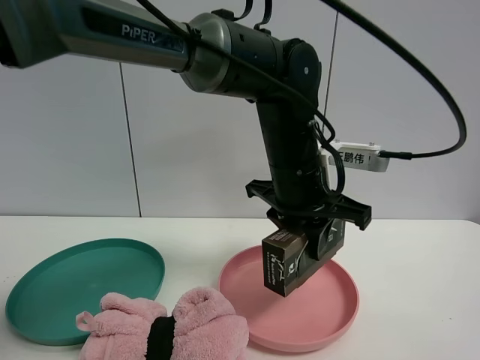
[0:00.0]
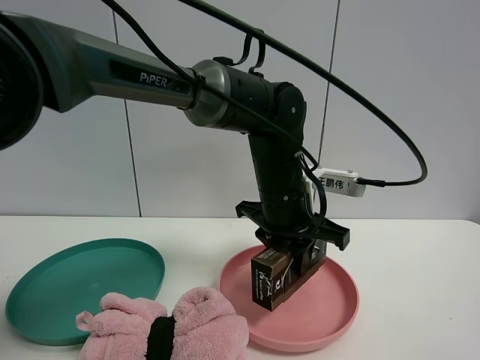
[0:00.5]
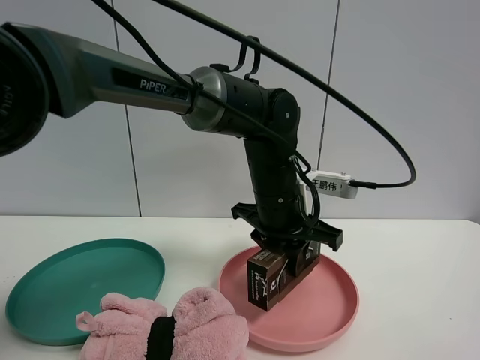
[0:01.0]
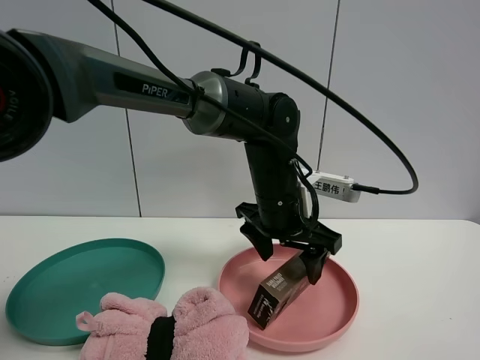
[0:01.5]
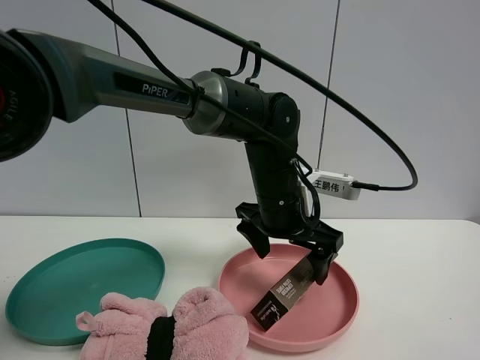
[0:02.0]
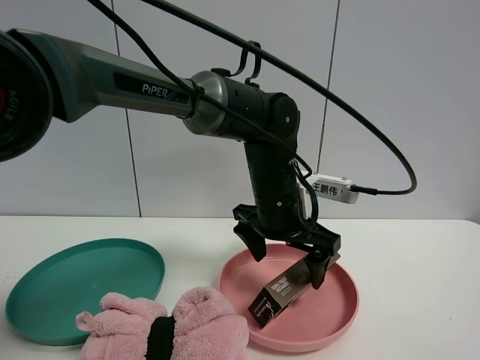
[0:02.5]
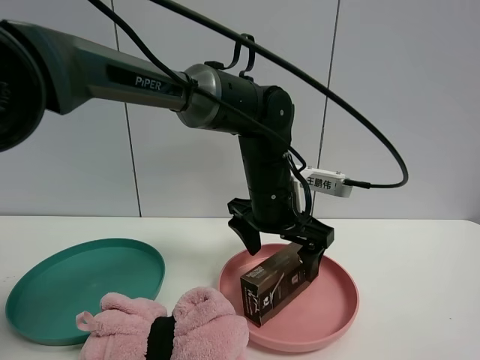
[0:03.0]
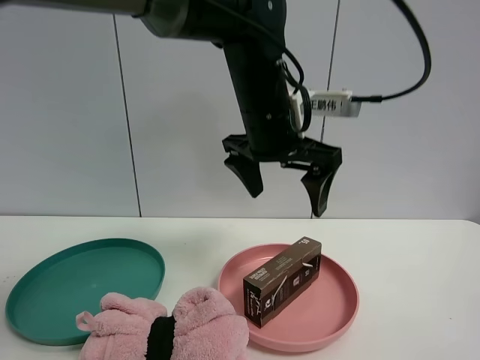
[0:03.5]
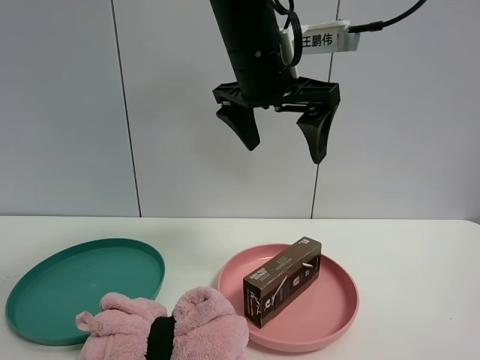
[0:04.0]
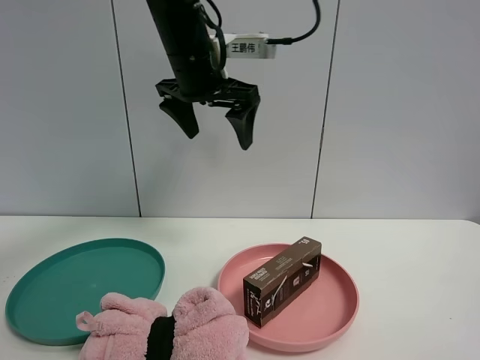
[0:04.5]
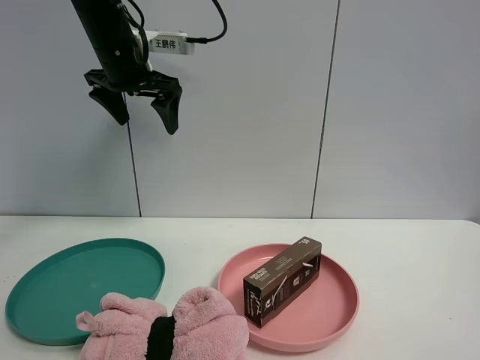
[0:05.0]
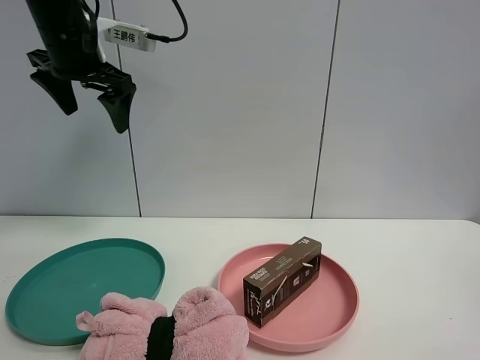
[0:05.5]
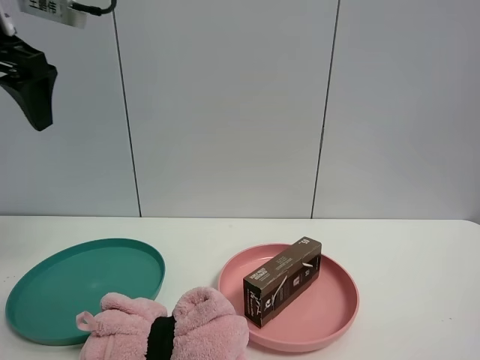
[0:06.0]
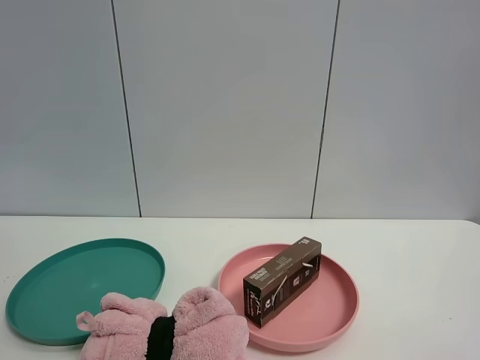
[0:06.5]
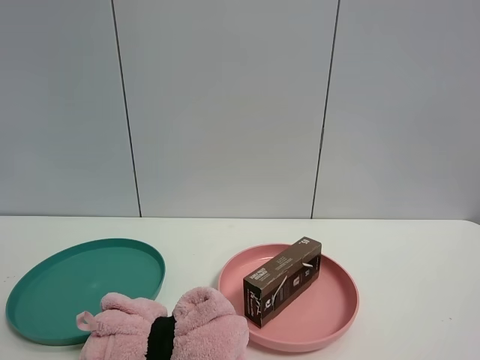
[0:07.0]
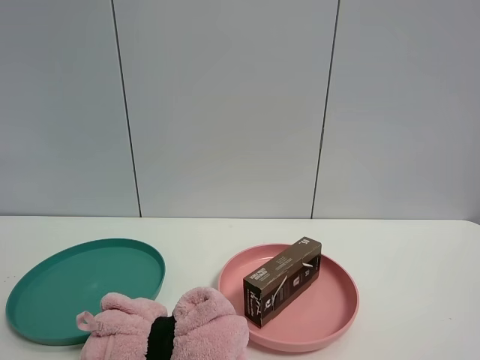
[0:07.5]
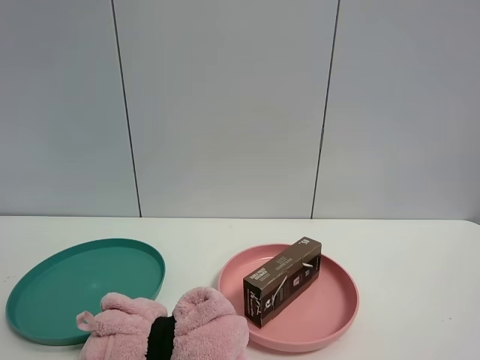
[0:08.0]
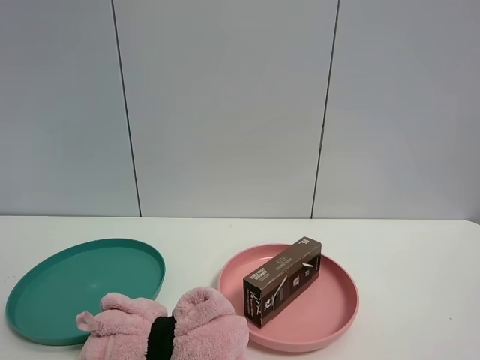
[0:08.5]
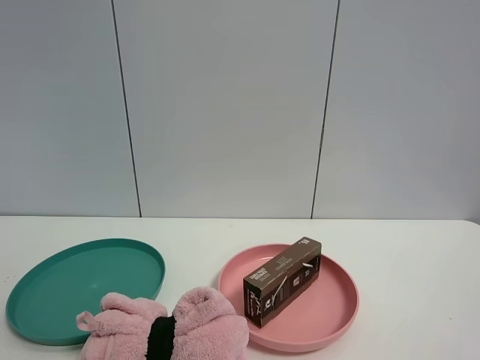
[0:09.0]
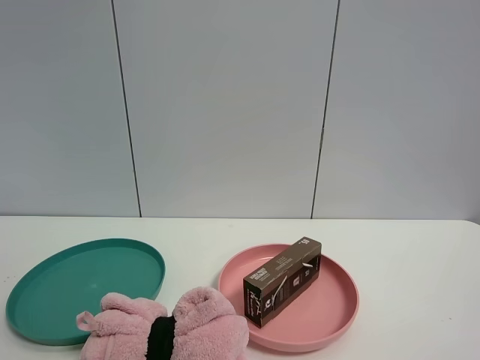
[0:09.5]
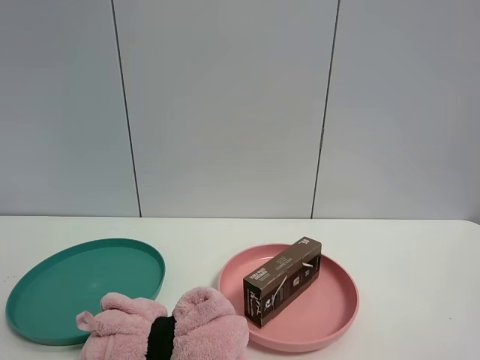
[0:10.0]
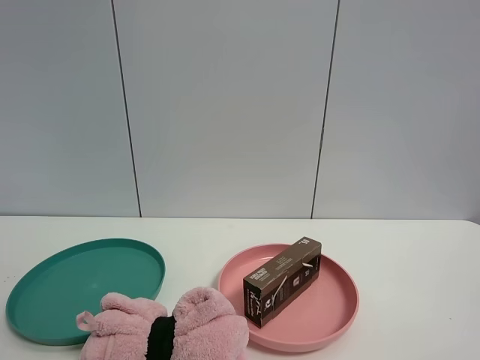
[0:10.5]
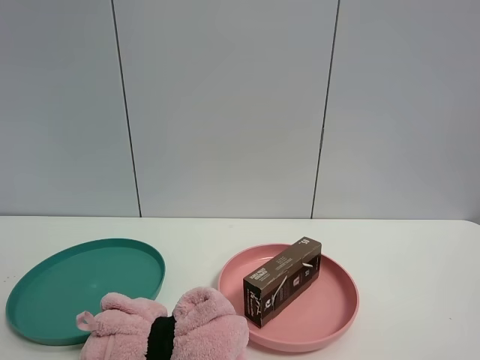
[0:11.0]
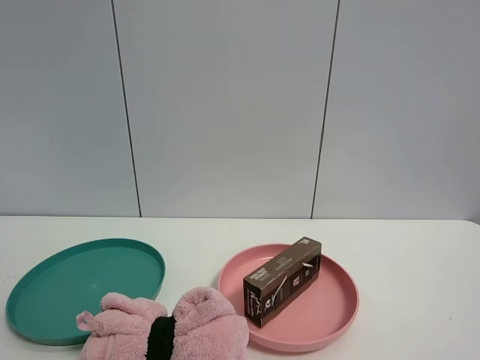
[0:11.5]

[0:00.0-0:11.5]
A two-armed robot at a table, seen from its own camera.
Task of the whole recording: the gripper move the object.
0:00.0 to 0:02.0: The left gripper moves some 5 cm, and opens up.
0:02.0 to 0:04.0: The left gripper shifts approximately 15 cm upward.
0:04.0 to 0:06.0: The left gripper is displaced to the left by roughly 30 cm.
0:06.0 to 0:07.5: The left gripper heads backward, covering some 30 cm.

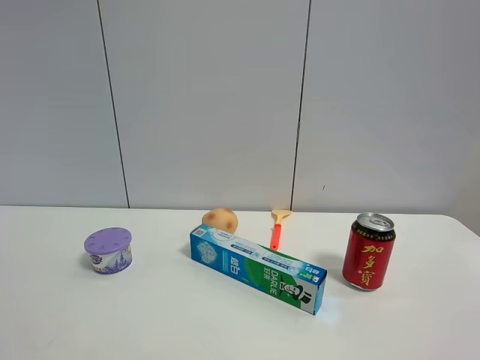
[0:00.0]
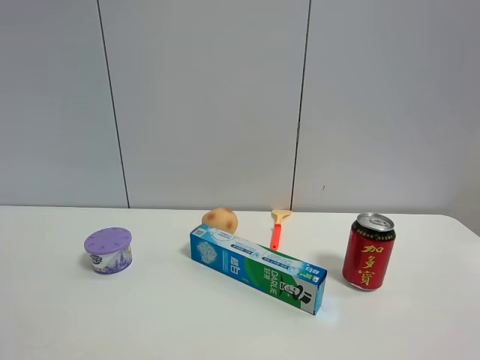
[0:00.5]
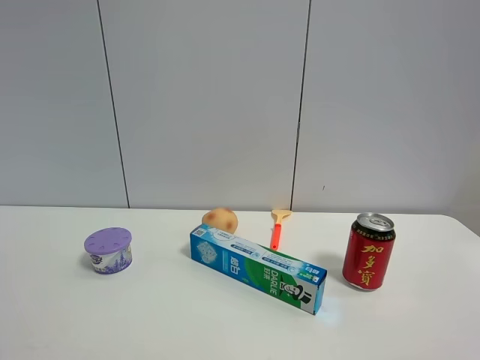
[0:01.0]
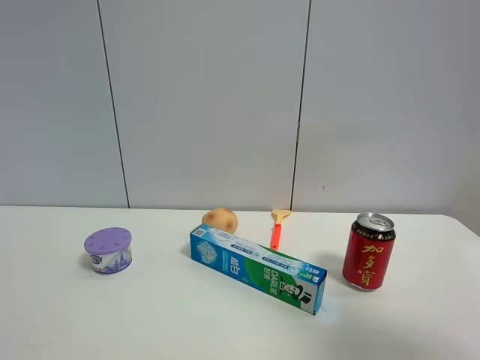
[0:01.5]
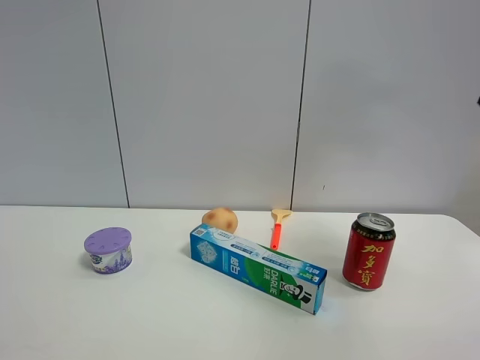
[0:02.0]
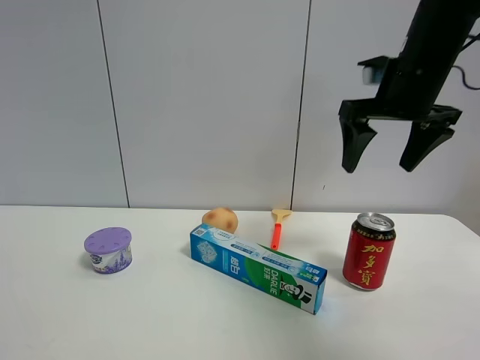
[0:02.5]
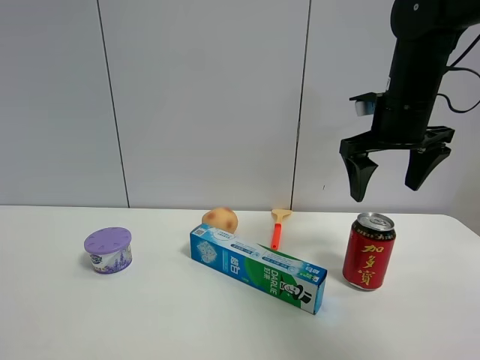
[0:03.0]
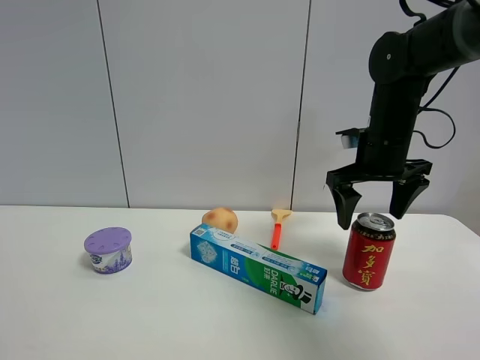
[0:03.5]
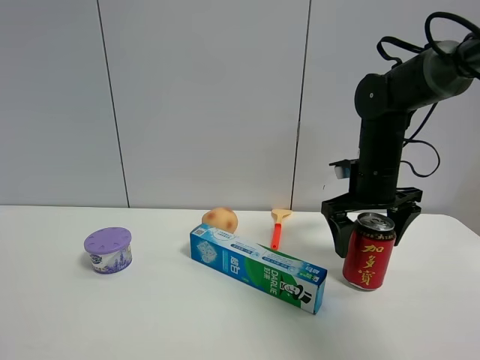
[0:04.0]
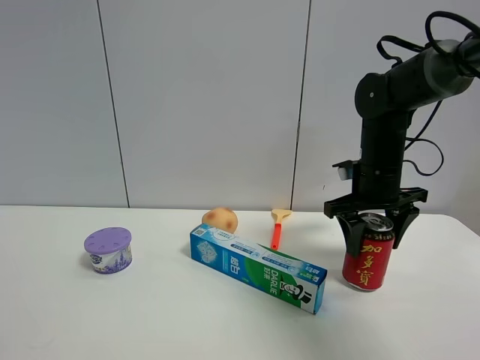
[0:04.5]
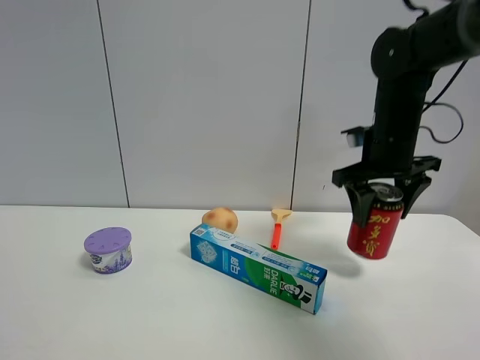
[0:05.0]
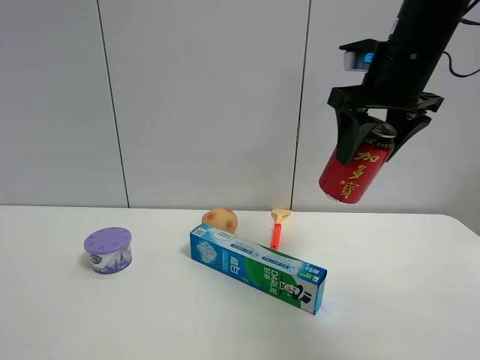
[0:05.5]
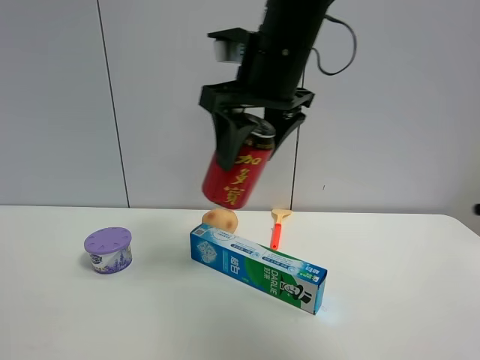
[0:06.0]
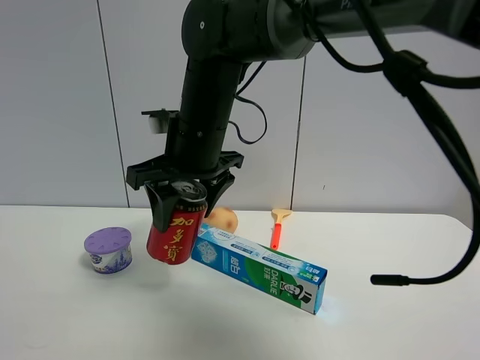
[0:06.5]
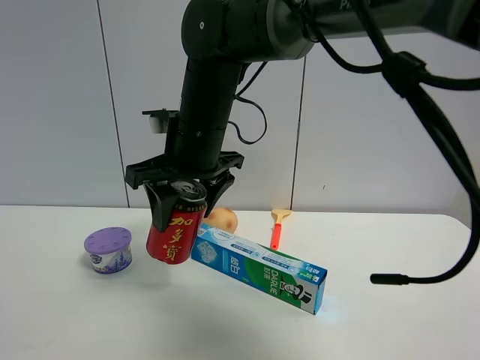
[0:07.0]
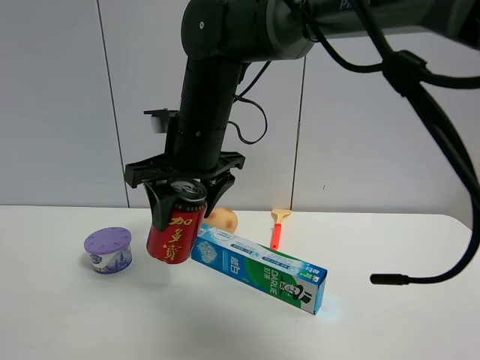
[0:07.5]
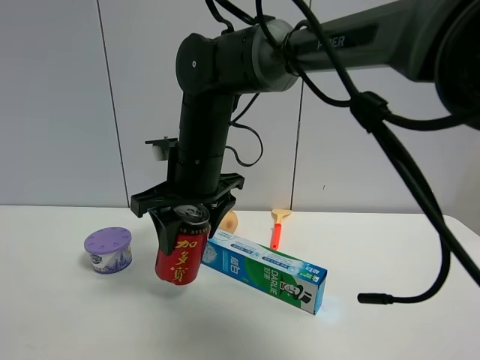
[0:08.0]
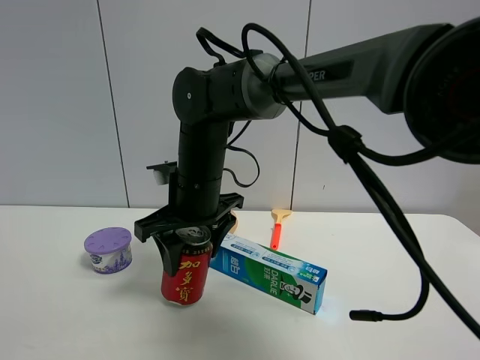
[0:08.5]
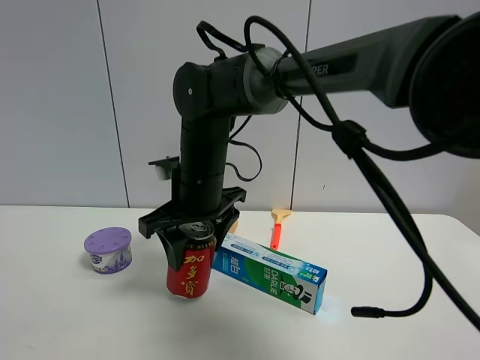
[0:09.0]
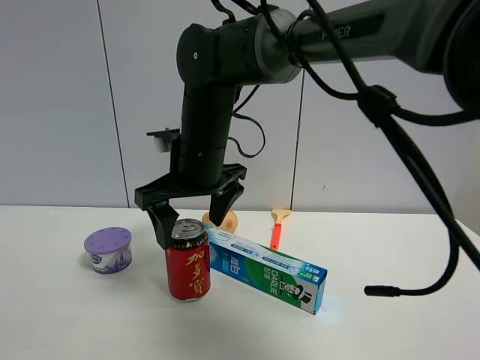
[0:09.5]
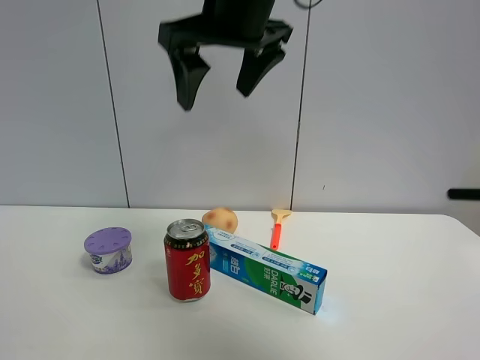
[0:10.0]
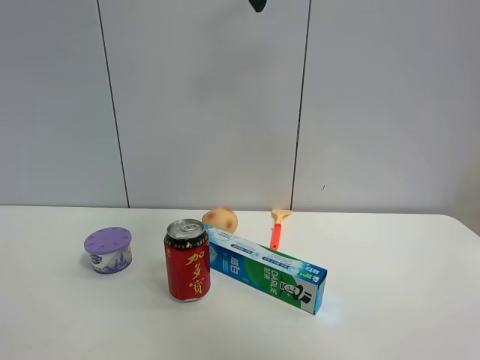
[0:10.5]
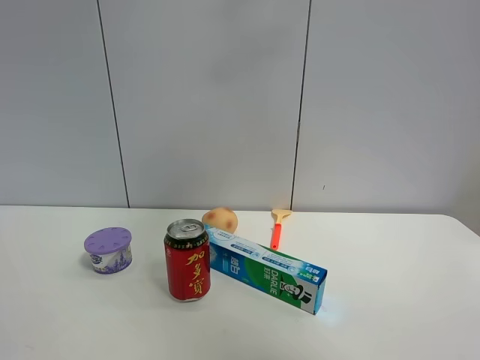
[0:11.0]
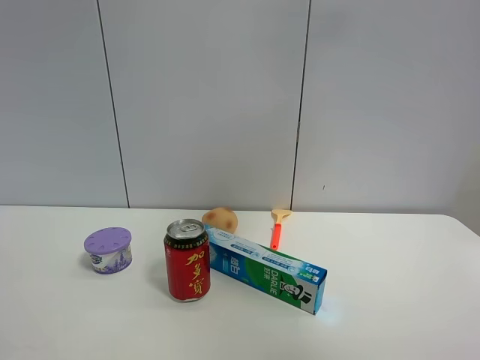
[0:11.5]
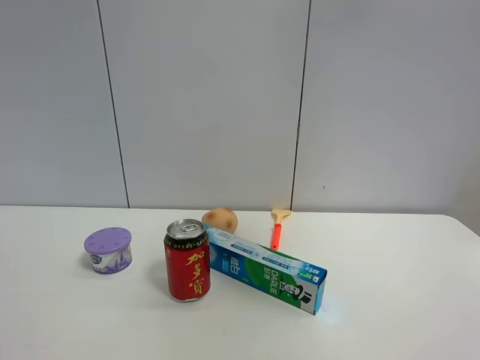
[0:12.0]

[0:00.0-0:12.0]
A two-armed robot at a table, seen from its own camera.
Task of the whole recording: the gripper move the object.
Step, 0:00.0 to 0:04.5: Grasp the Jia Duo Bao with the right gripper.
Step, 0:05.0 to 0:09.0: Place the Jia Duo Bao on the table with the right gripper.
0:00.0 to 0:02.0: The right gripper travels forward by about 30 cm.
0:02.0 to 0:04.0: The right gripper heads downward, forward and to the left, covering roughly 25 cm.
0:04.0 to 0:06.0: The right gripper is displaced to the left, upward and backward by roughly 25 cm, and closes its fingers.
0:06.0 to 0:08.0: The right gripper moves downward and to the left, roughly 15 cm.
0:08.0 to 0:10.0: The right gripper is displaced upward by about 20 cm, and opens.
0:10.0 to 0:12.0: The right gripper is displaced to the right, upward and backward by approximately 35 cm, and opens its fingers.

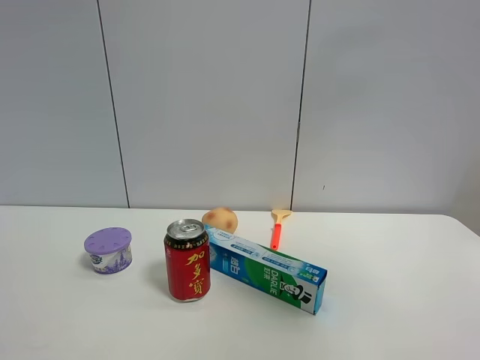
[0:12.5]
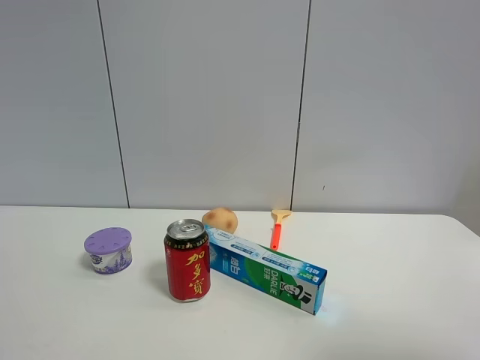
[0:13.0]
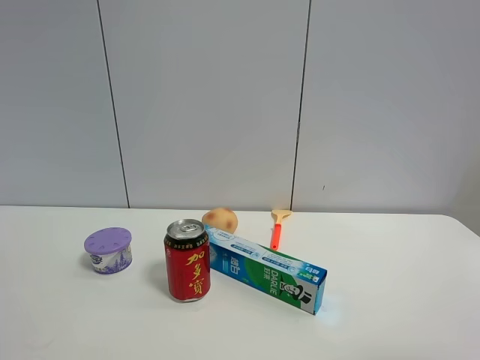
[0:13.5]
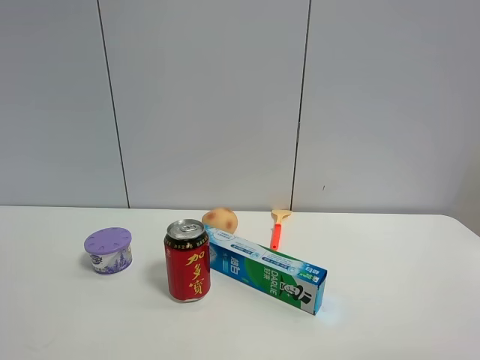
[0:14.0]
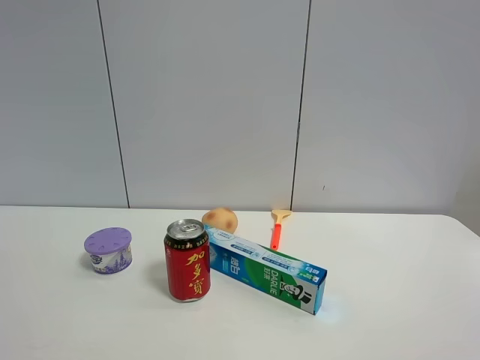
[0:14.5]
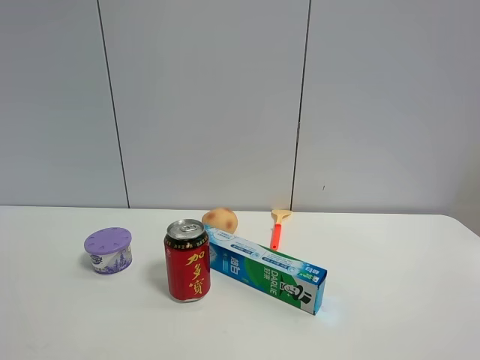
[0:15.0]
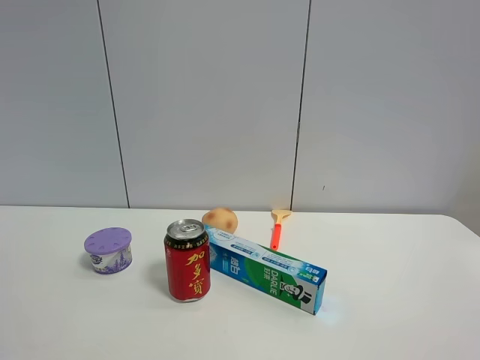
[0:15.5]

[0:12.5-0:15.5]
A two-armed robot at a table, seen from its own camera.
Task of the whole recording: the gripper move the object.
0:12.5 to 0:14.0: The right gripper moves downward and backward, roughly 20 cm.
